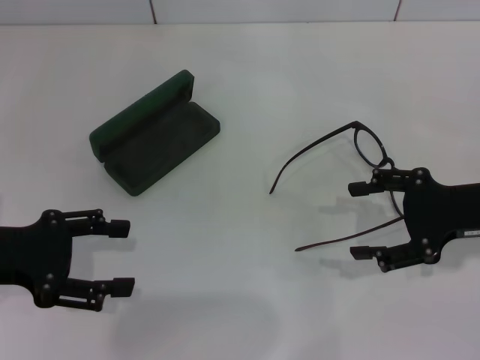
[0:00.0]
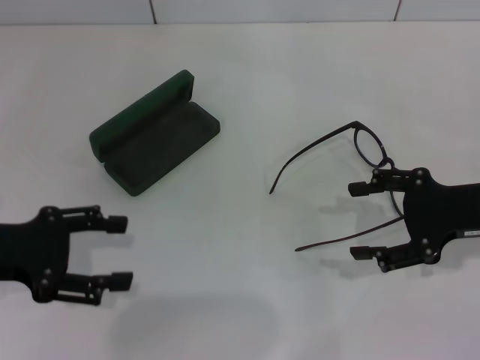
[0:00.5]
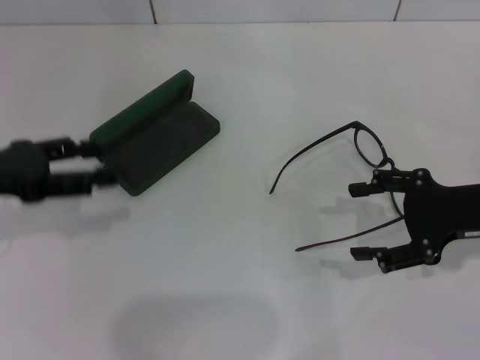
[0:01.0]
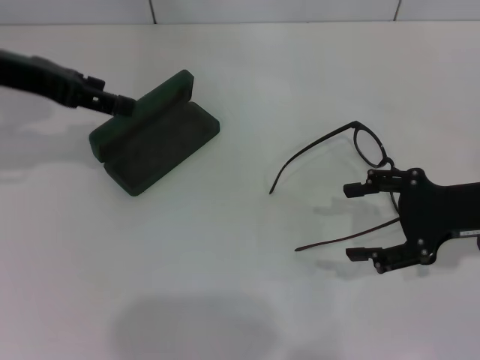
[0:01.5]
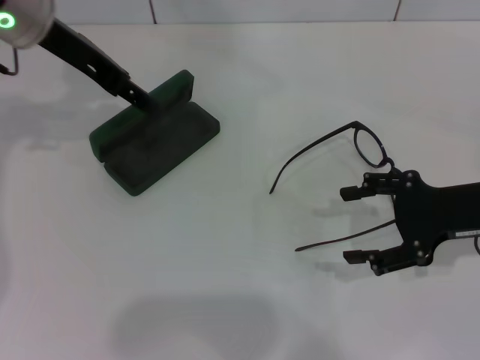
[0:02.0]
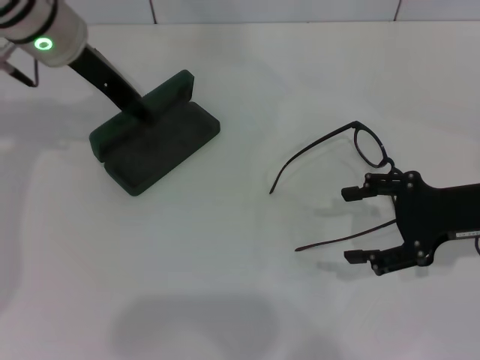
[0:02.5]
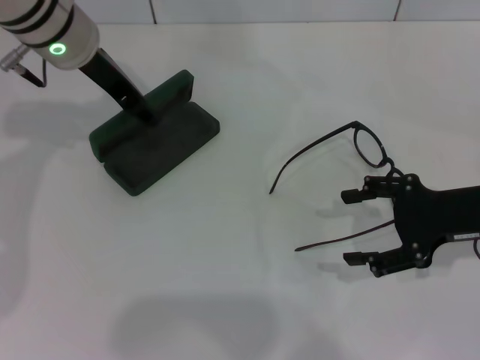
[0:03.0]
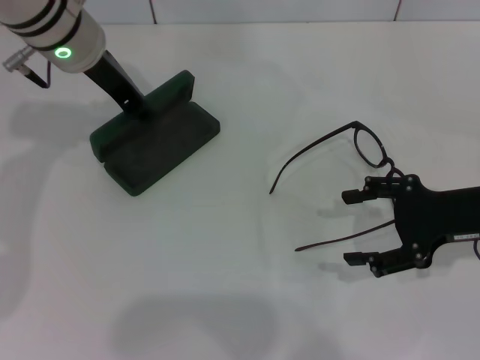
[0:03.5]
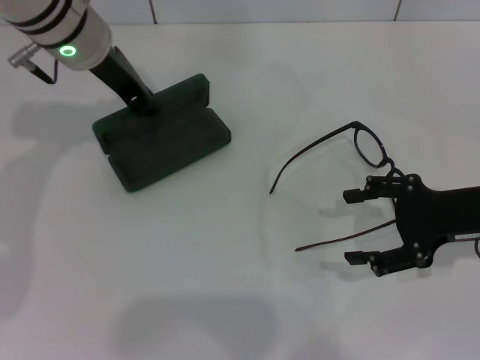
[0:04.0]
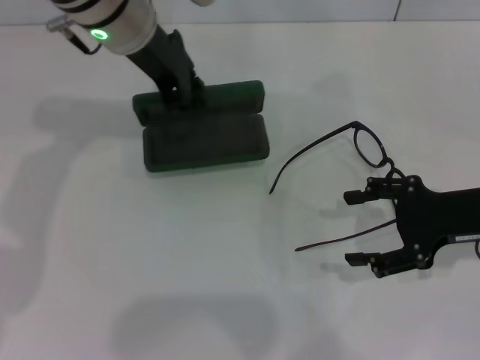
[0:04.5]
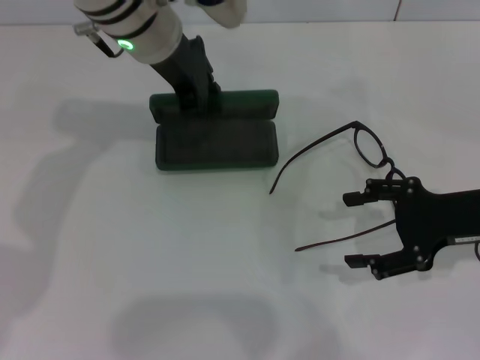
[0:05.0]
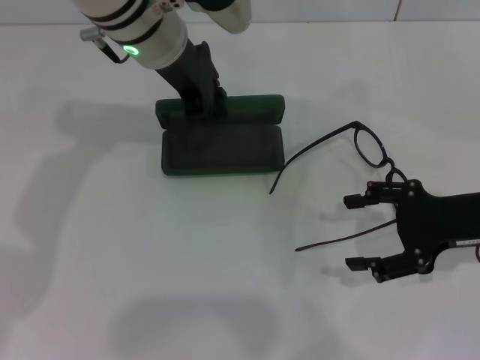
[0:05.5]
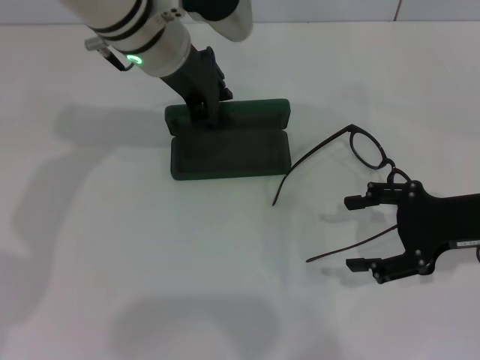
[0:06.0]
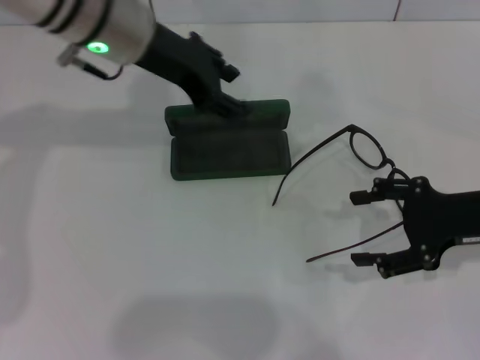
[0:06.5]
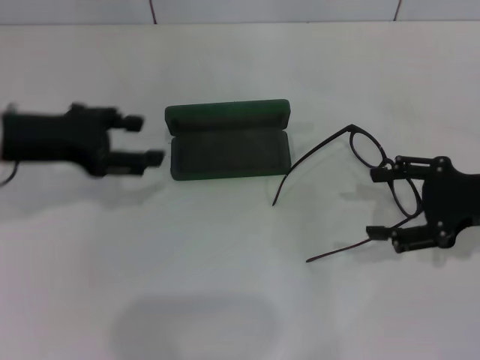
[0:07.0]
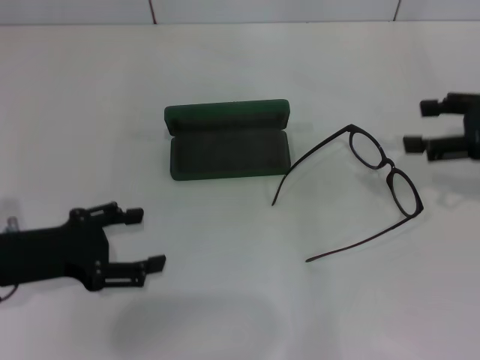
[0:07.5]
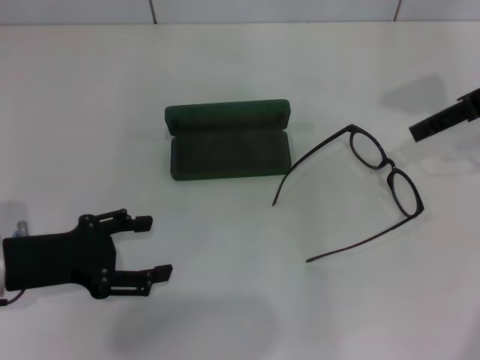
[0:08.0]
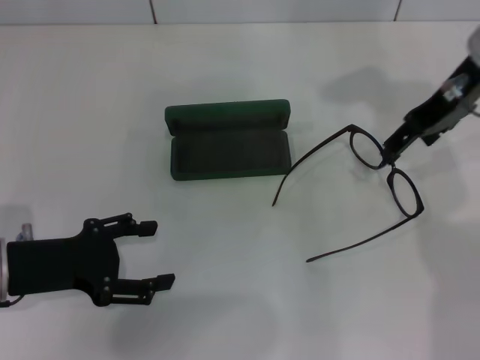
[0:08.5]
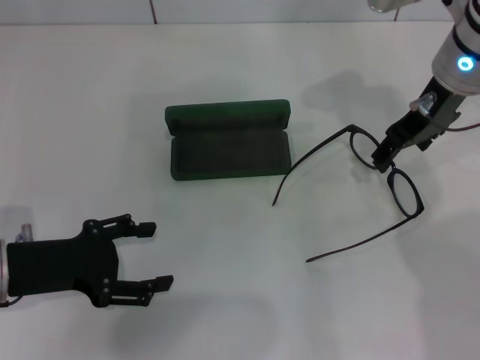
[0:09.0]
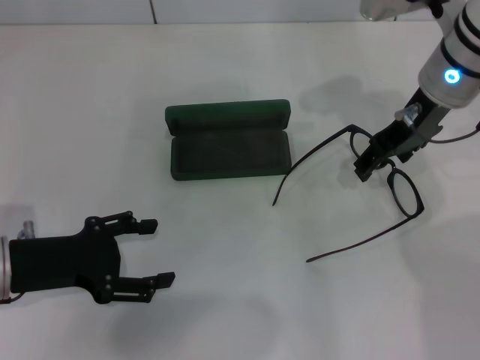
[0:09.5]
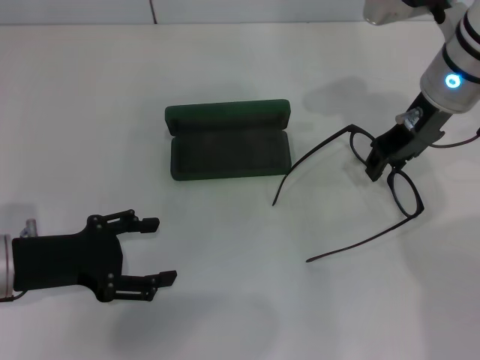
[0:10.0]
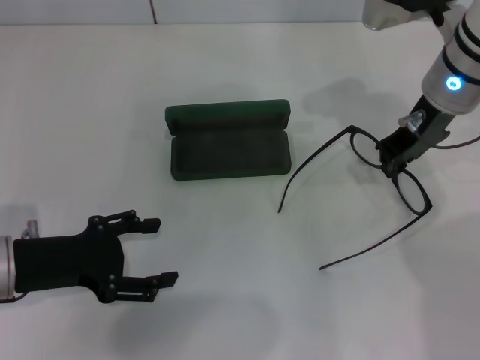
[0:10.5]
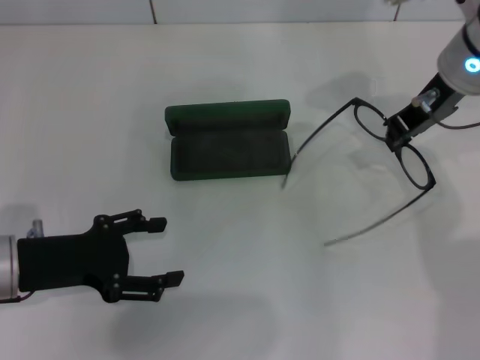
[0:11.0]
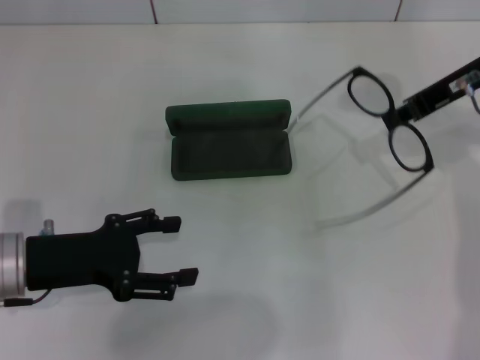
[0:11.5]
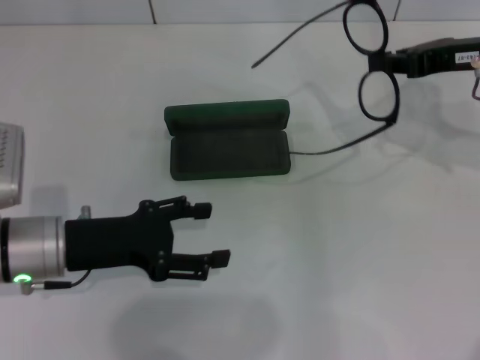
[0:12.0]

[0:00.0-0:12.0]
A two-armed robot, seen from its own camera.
Step, 0:00.0 to 0:03.0: Grab the glasses case with your left hand.
Step, 0:03.5 to 0:06.5: Place the glasses case in the center of the table with your left hand.
Step, 0:07.0 to 0:10.0: Grab the eyeglass frame with your right hand.
0:00.0 to 0:02.0: The left gripper goes about 25 cm forward, upward and to the right.
0:02.0 to 0:04.0: The left gripper changes place by roughly 5 cm, and closes.
0:04.0 to 0:06.0: The left gripper travels to the right by roughly 5 cm.
0:06.0 to 0:08.0: The right gripper is displaced upward and forward by some 15 cm. The left gripper heads to the left, backward and downward, covering roughly 30 cm, and opens.
0:08.0 to 0:10.0: The right gripper shifts approximately 10 cm to the left.
0:10.0 to 0:12.0: The right gripper heads to the right, covering roughly 10 cm, and closes up.

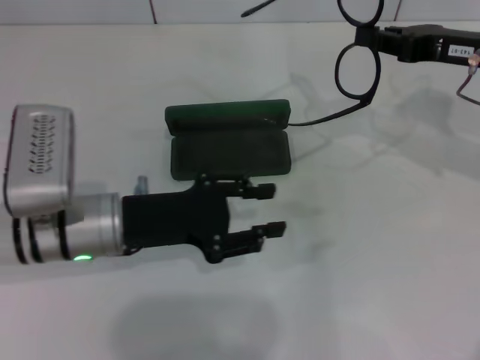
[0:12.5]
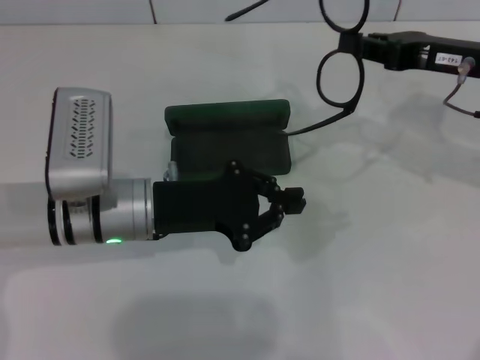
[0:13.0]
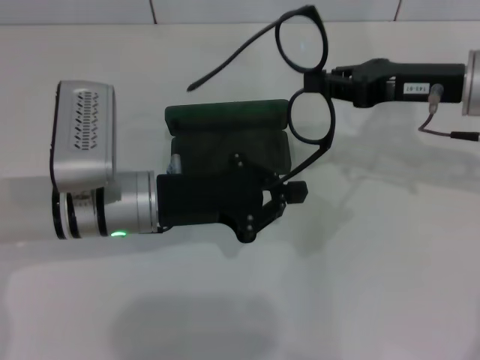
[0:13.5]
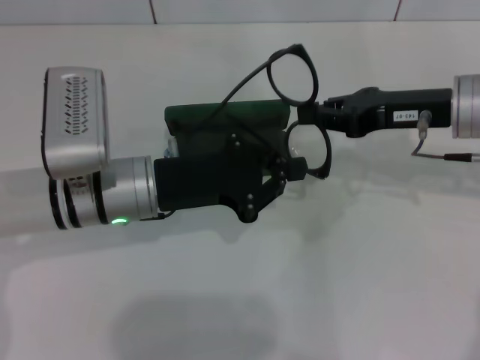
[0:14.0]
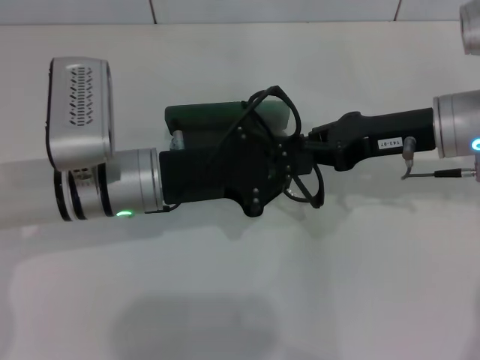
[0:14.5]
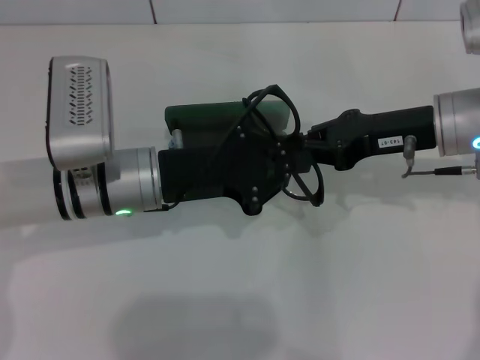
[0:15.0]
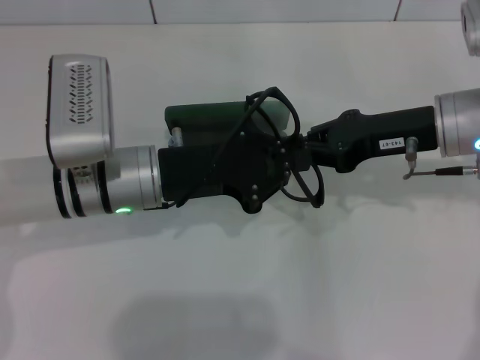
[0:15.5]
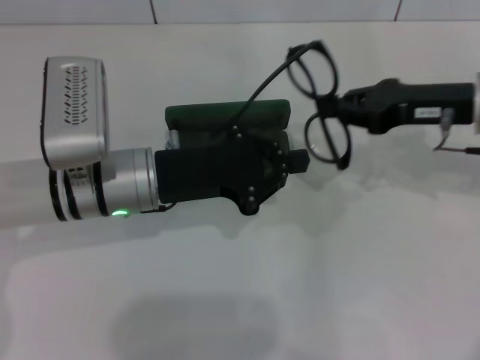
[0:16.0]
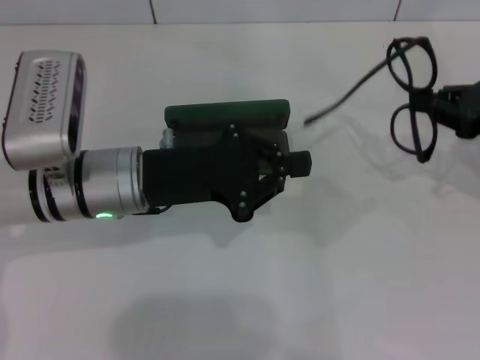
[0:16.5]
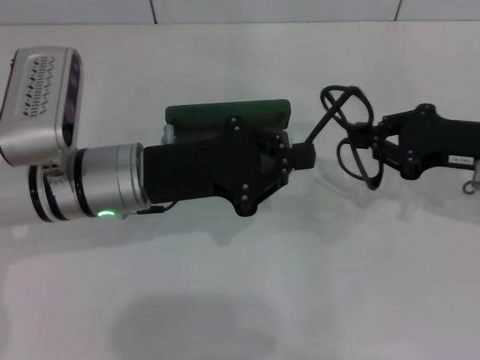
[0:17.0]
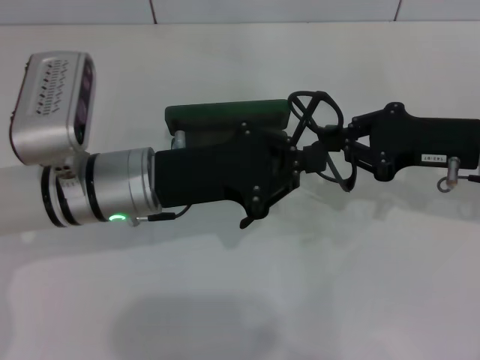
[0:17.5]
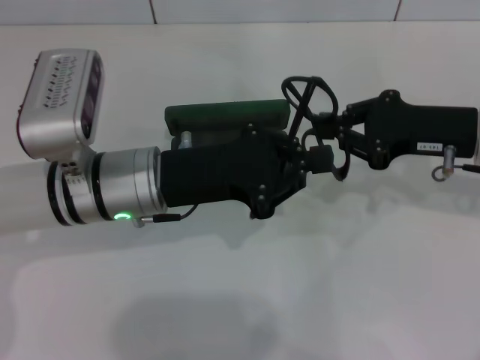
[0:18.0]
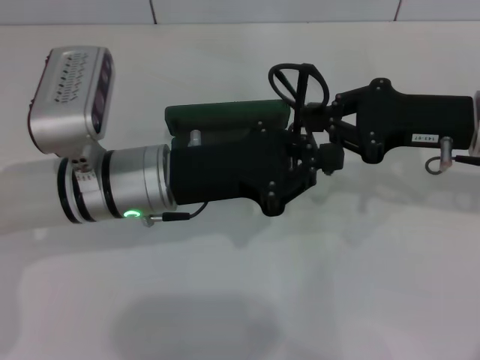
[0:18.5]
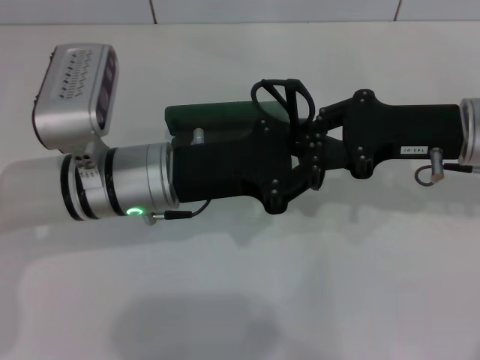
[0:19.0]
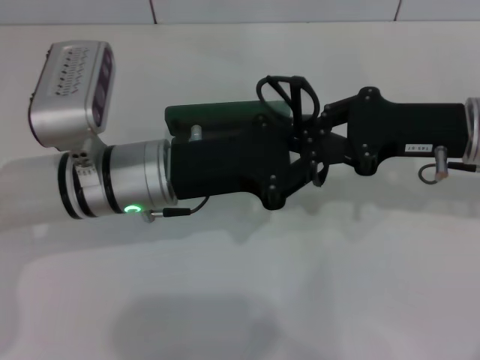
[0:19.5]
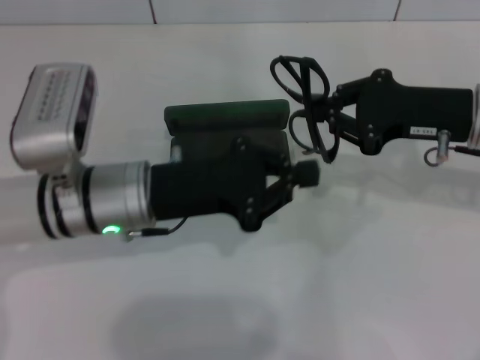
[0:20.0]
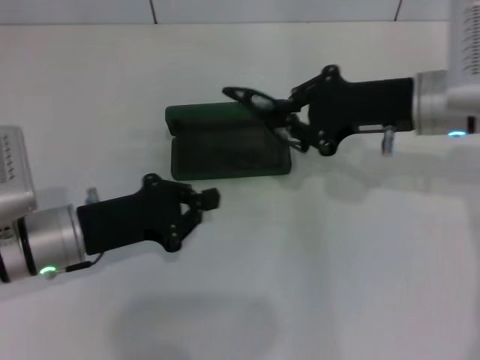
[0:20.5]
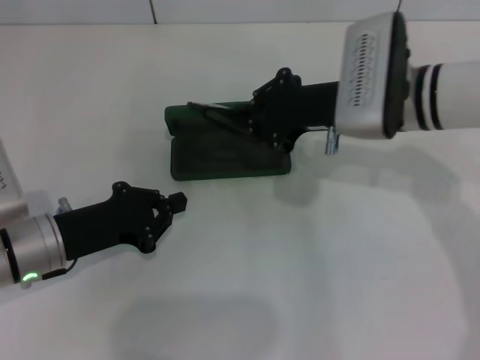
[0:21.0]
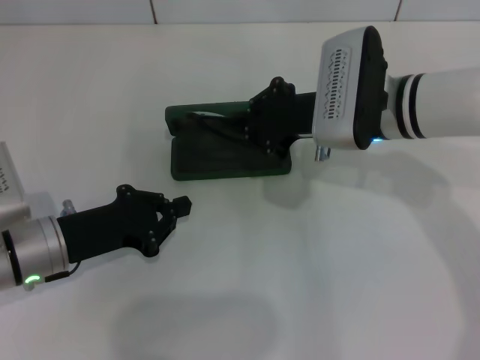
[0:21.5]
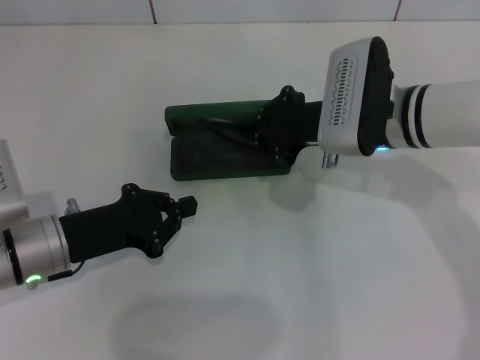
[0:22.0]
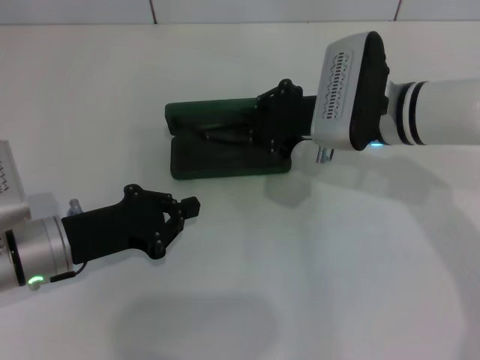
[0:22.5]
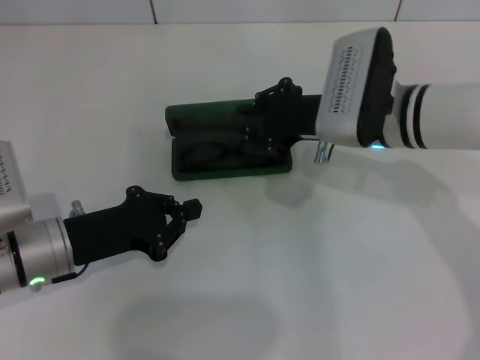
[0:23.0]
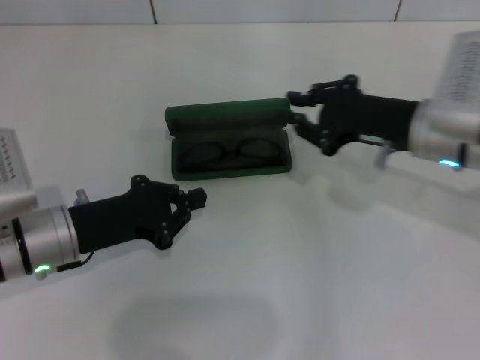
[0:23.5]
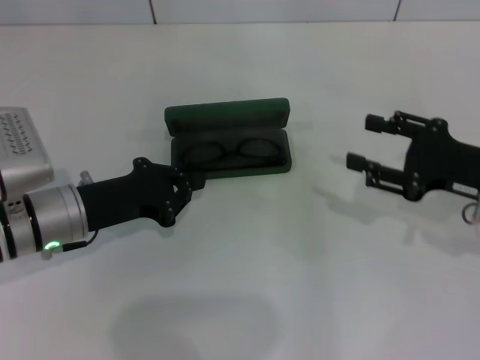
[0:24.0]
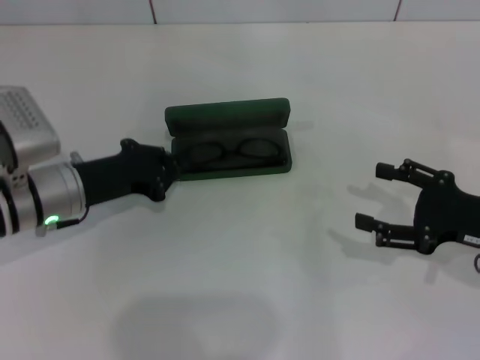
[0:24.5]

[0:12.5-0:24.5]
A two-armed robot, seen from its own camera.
Step, 0:12.5 to 0:19.0: Fold the frame with your left hand.
Step, 0:19.5 to 0:23.0: Put the glasses into the case with your right hand.
0:12.5 to 0:14.5: The right gripper is displaced to the left by about 5 cm; the left gripper ends up approximately 5 cm from where it was, and closes.
0:14.5 to 0:16.5: The right gripper moves to the right, approximately 10 cm.
0:16.5 to 0:18.5: The right gripper moves to the left, roughly 10 cm.
0:18.5 to 0:20.5: The left gripper is displaced to the left and downward by roughly 10 cm. The right gripper travels to the left by roughly 5 cm.
0:20.5 to 0:22.5: The right gripper heads to the left, covering approximately 5 cm.
0:22.5 to 0:24.5: The right gripper moves to the right and backward, about 20 cm, and opens up, while the left gripper shifts roughly 5 cm forward.

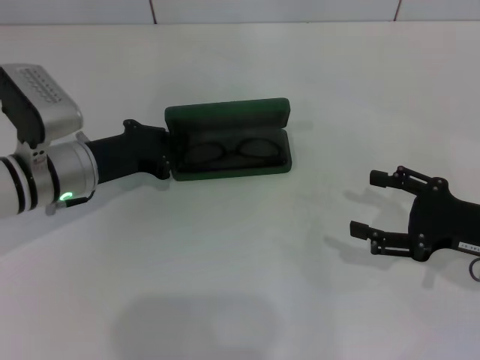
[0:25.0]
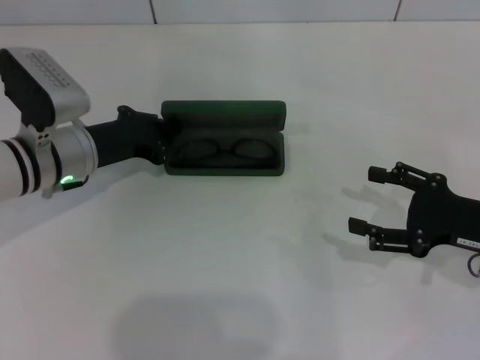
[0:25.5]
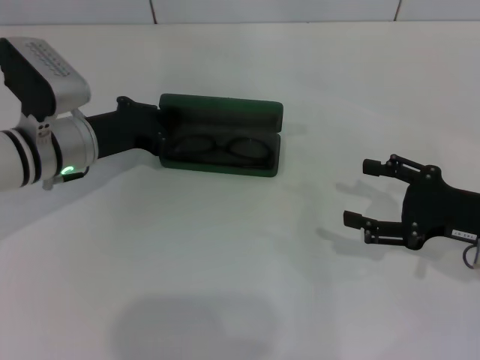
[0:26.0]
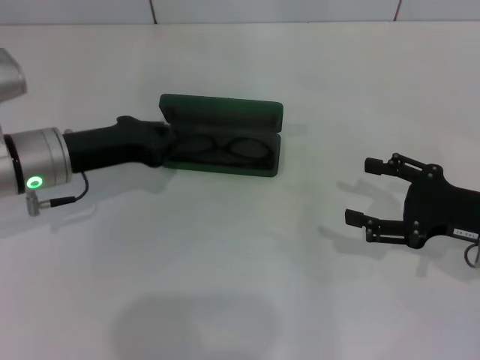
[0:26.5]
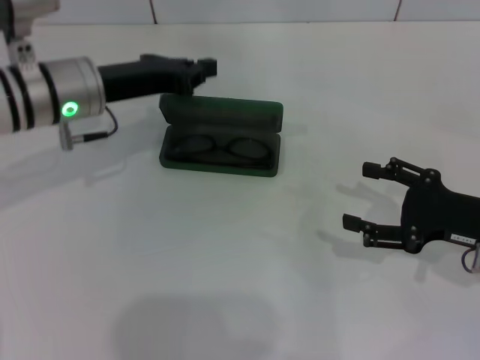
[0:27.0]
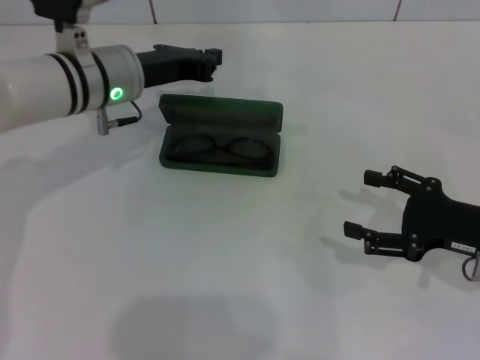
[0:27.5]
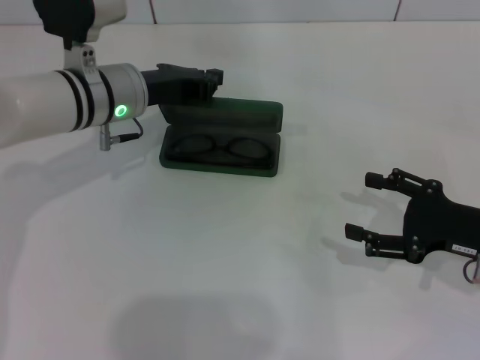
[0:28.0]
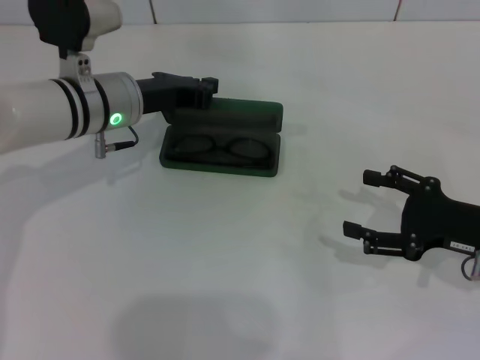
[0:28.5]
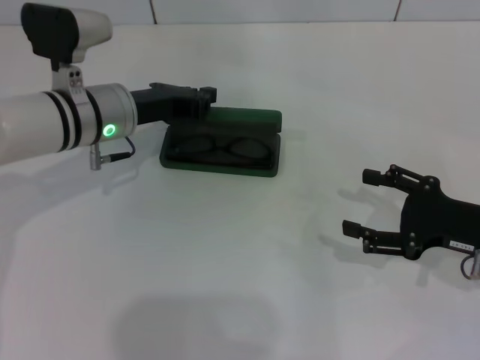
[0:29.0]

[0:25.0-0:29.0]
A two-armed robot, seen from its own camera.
0:25.0 to 0:27.0: The left gripper is displaced upward by approximately 10 cm.
0:27.0 to 0:29.0: The grippers stay close to where they were, moving slightly.
